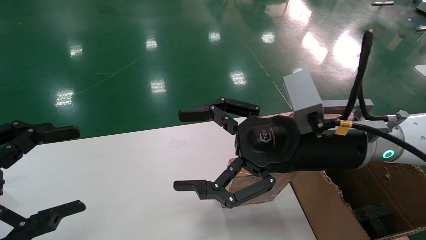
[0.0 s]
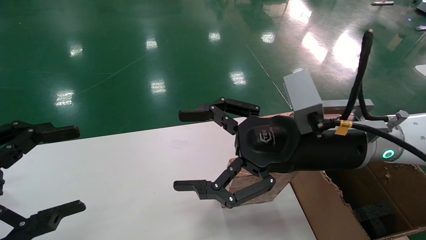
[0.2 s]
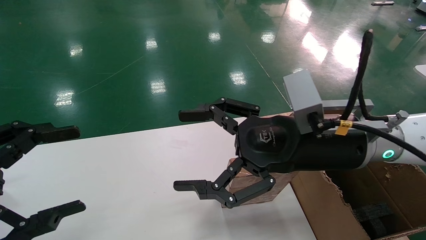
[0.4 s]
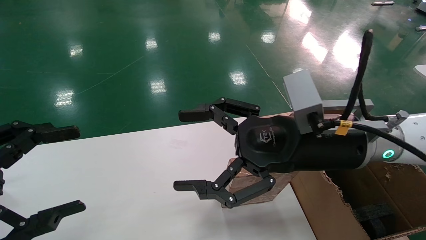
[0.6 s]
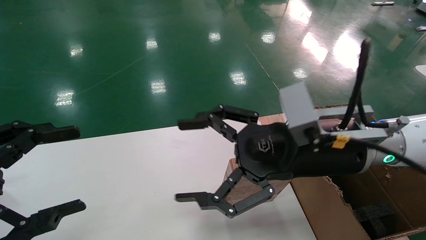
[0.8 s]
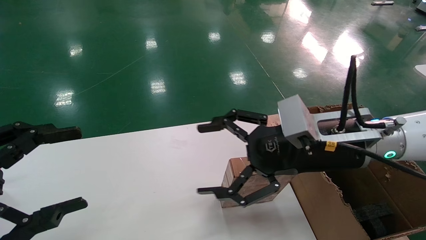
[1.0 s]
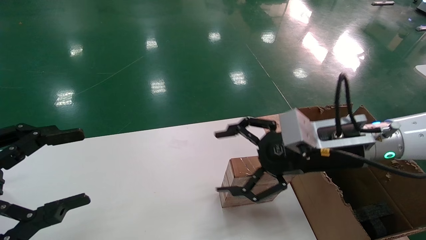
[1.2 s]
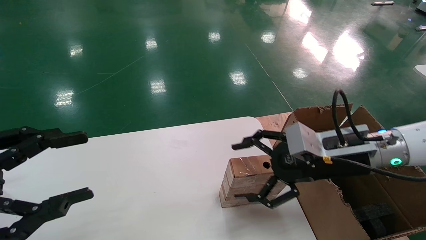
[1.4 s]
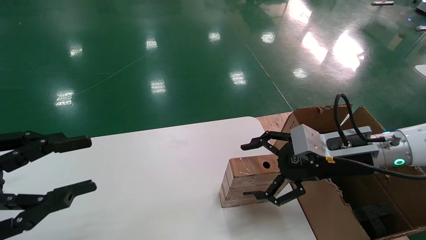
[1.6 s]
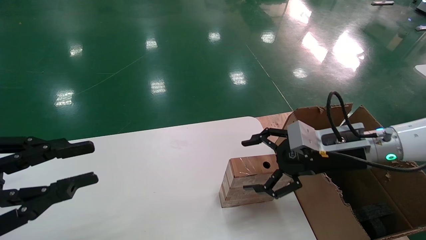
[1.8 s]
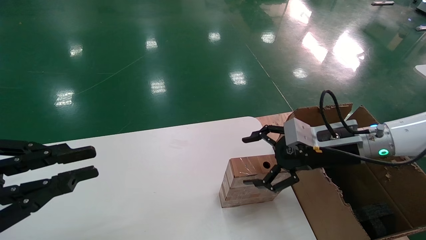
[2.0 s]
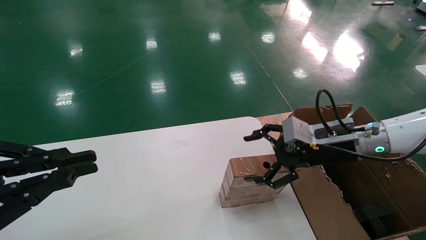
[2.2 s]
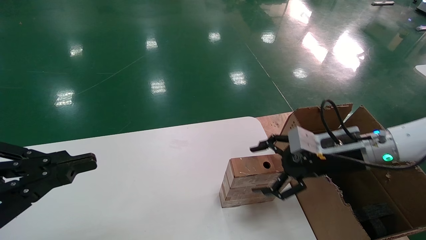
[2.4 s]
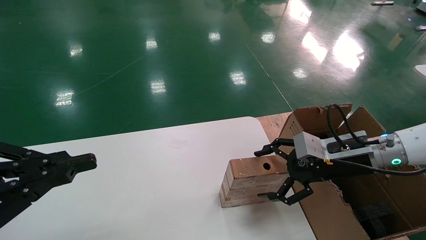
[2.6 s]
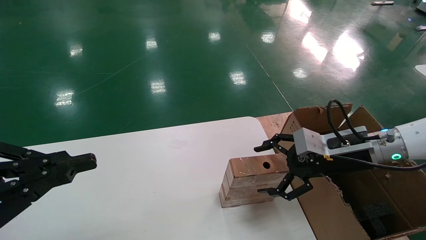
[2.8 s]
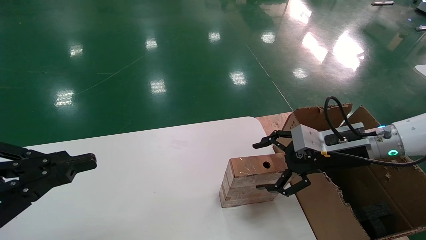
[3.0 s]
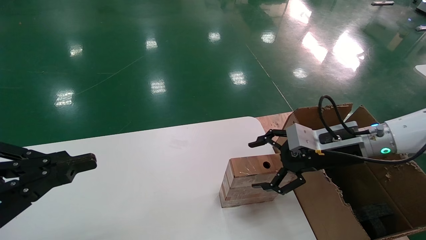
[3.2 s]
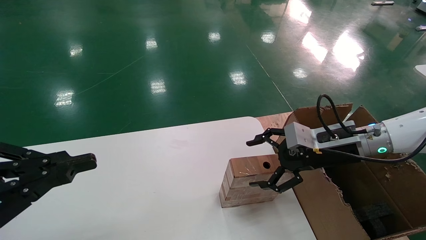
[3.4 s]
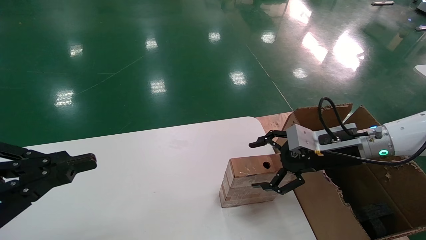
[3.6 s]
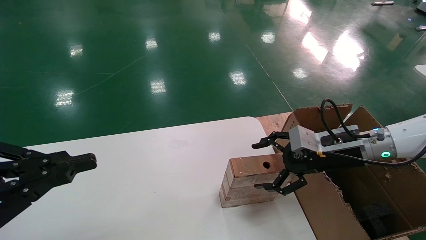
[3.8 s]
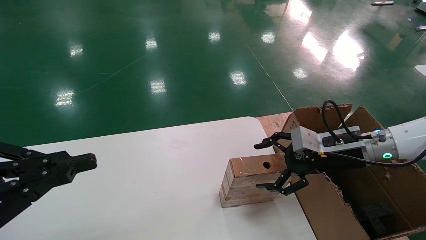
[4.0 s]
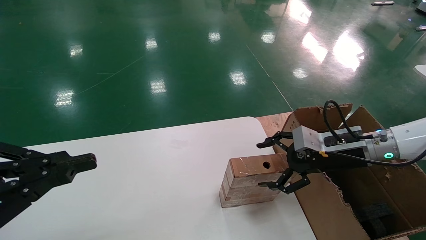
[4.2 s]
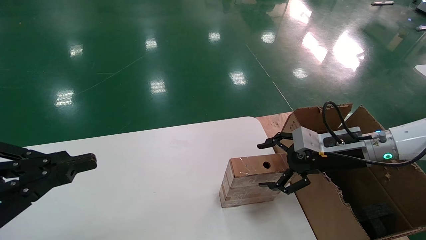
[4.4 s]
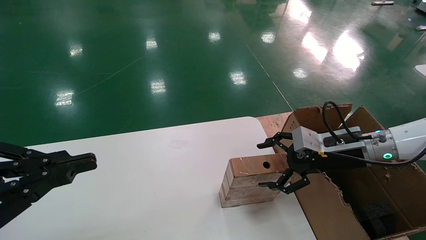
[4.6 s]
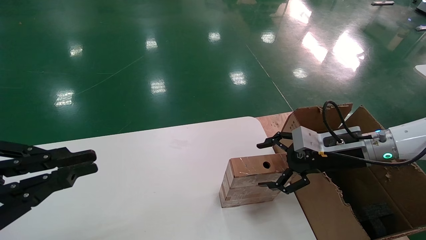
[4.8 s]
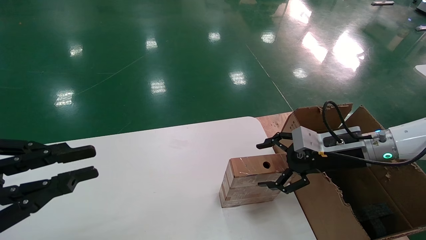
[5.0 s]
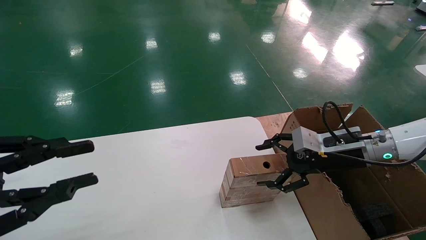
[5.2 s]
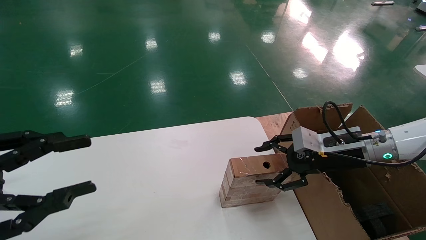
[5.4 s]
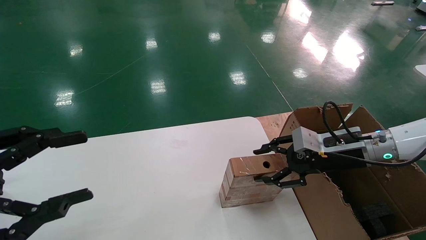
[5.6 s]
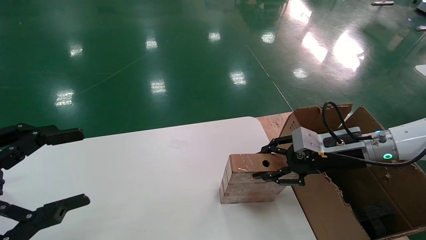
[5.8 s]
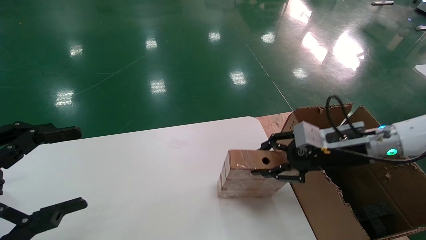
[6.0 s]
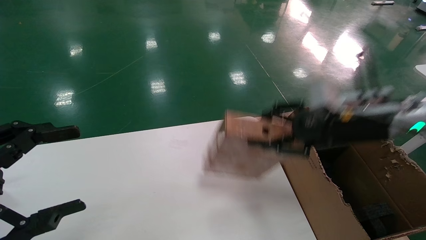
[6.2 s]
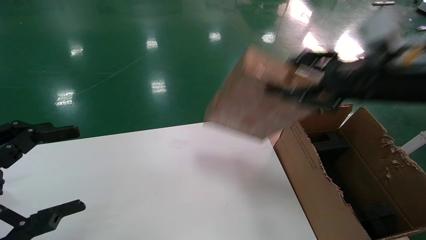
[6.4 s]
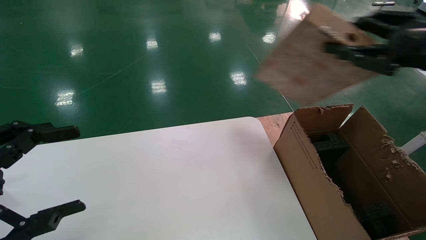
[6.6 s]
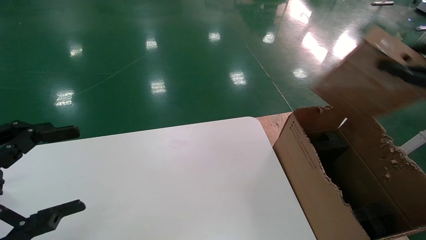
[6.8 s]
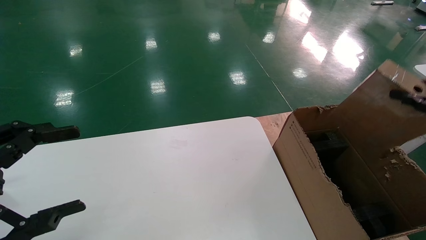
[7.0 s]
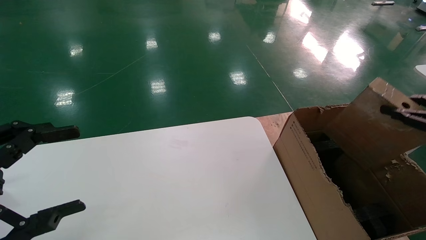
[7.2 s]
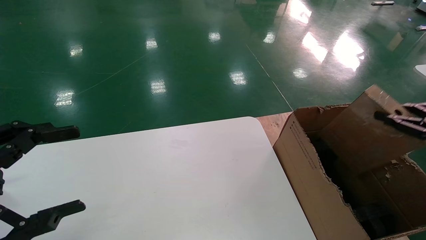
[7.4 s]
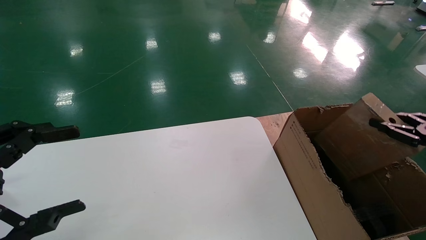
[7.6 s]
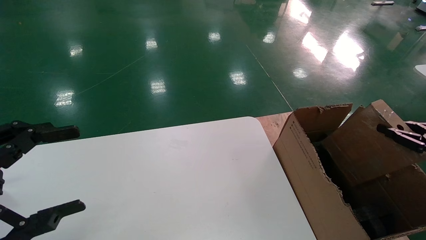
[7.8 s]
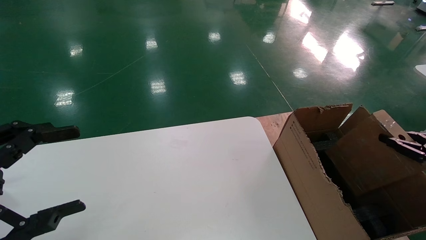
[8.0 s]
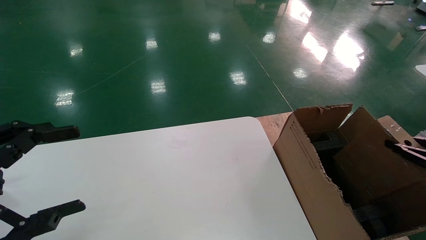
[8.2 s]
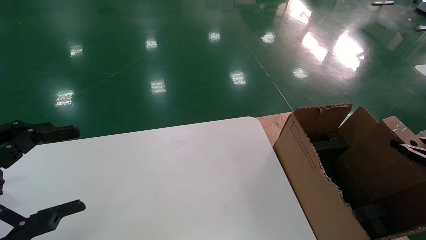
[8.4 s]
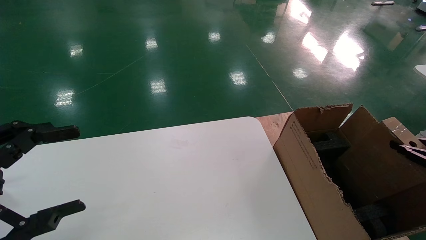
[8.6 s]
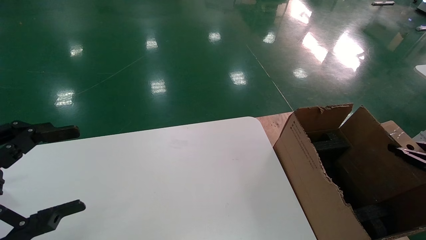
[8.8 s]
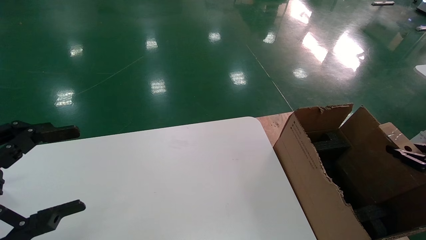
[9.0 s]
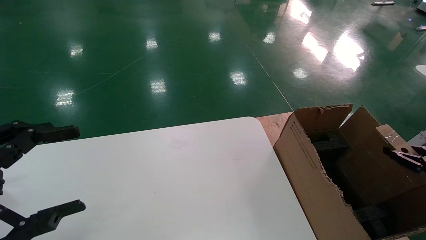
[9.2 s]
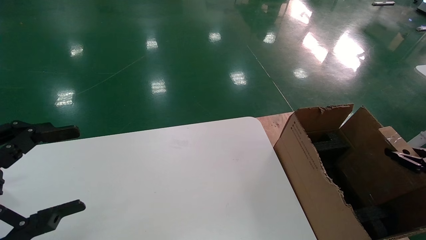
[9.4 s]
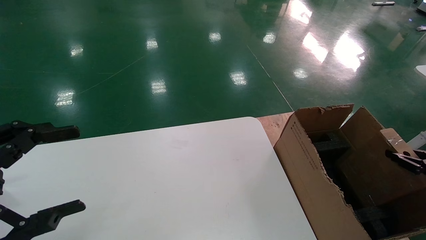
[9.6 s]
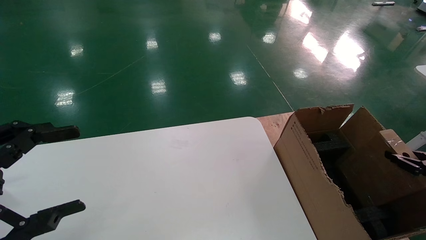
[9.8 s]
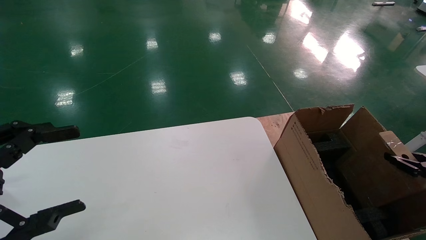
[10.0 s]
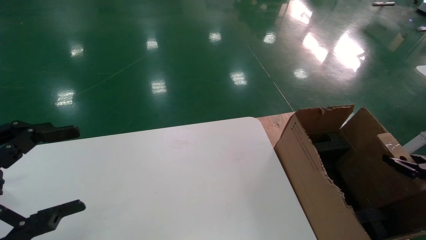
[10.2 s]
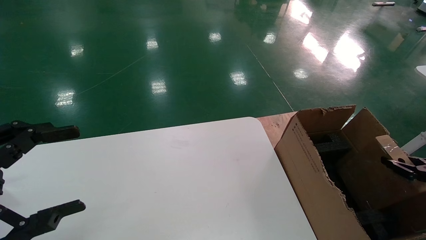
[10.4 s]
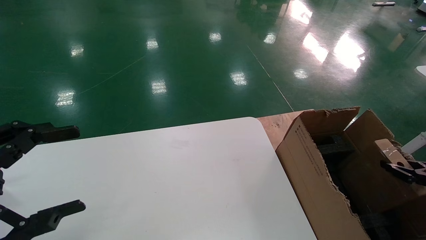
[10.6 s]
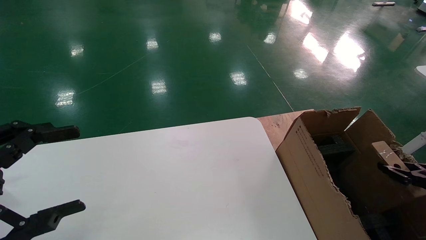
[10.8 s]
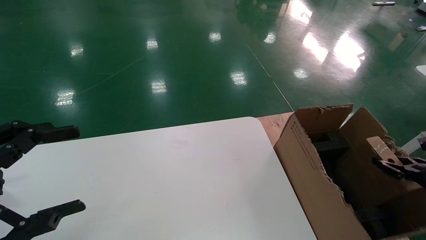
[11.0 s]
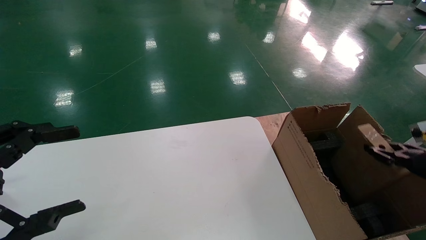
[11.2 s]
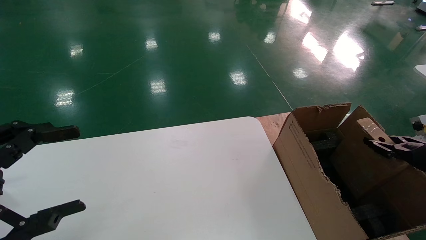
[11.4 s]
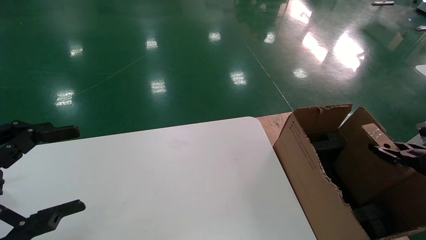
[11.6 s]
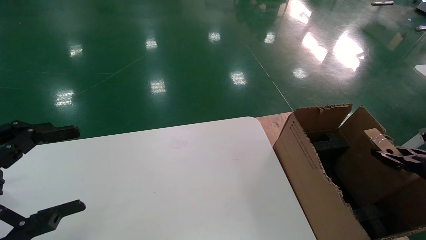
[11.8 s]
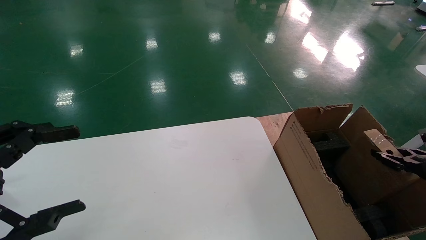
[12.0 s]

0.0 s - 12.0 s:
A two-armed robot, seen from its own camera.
Task of the whole recording: put the box on the table into the big box.
Step, 1.2 s - 6.0 s: Pick up the mouse and the power cord paper box.
0.0 s - 1.6 s: The left gripper closes, while the right gripper heads to the right and downward, covering some 10 cm.
1.6 s - 3.0 s: The left gripper closes its fingers.
3.0 s - 4.4 s: The grippers make only small movements.
4.4 s - 6.0 s: The right gripper closes; the left gripper opens.
6.0 s - 7.6 s: The right gripper heads to the right and backward, covering roughly 25 cm.
7.6 s - 9.0 s: The right gripper moves downward, some 5 cm.
9.0 s - 10.4 s: The grippers make only small movements.
10.4 s - 12.0 s: The grippers move only a little.

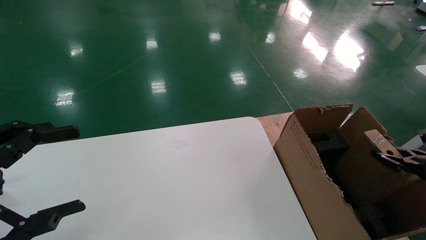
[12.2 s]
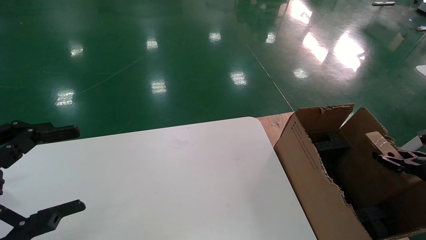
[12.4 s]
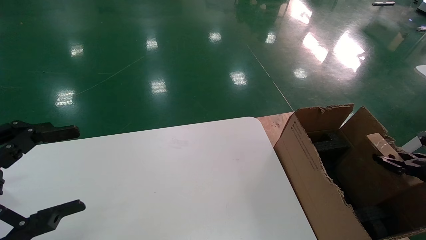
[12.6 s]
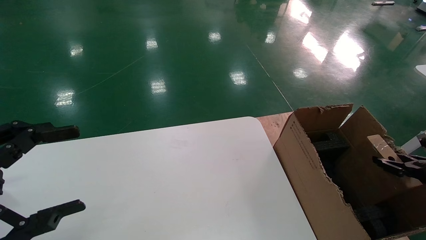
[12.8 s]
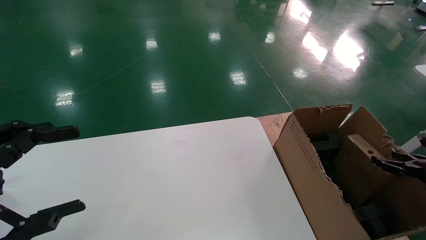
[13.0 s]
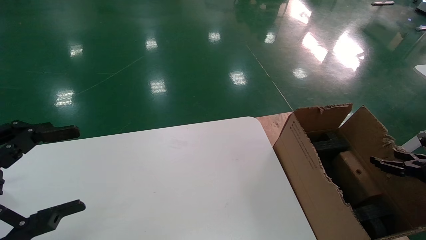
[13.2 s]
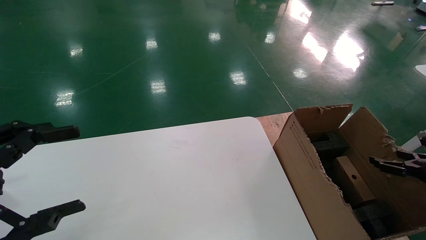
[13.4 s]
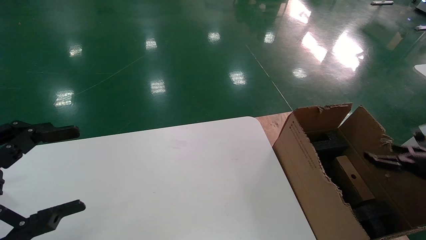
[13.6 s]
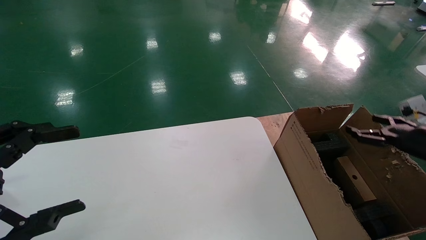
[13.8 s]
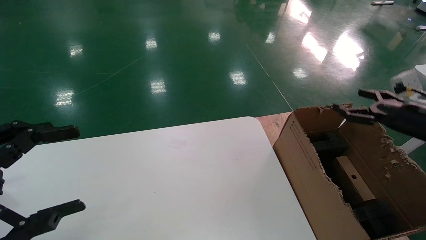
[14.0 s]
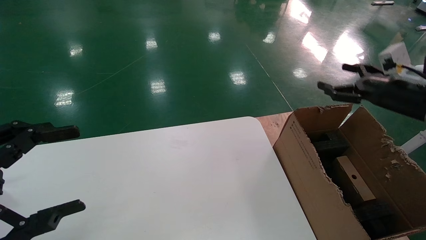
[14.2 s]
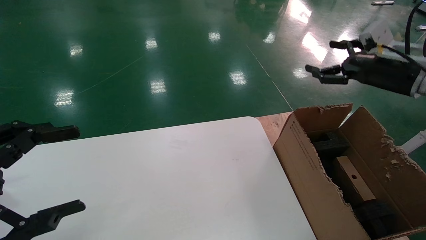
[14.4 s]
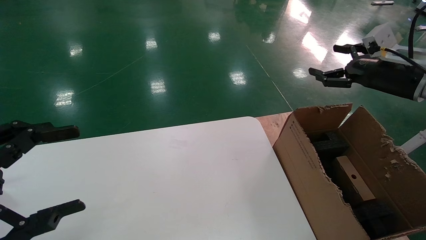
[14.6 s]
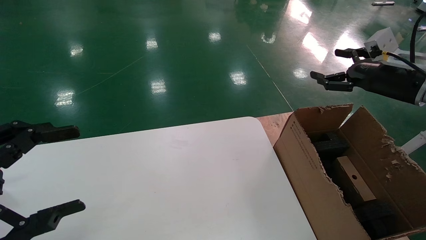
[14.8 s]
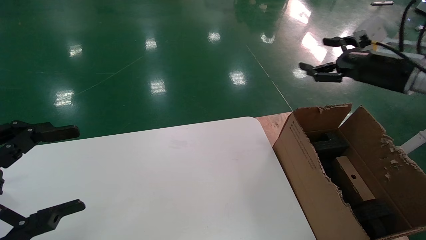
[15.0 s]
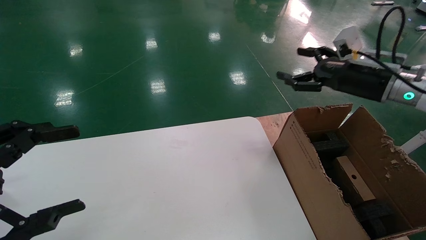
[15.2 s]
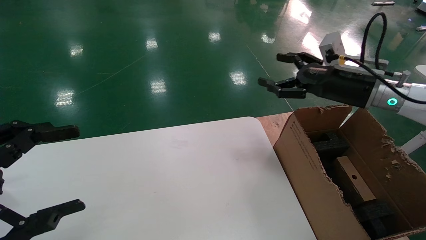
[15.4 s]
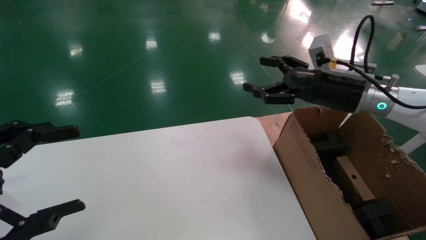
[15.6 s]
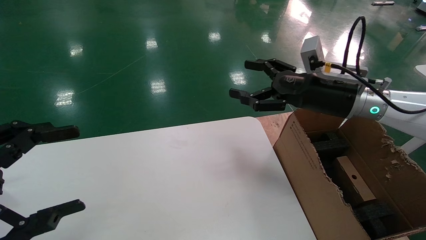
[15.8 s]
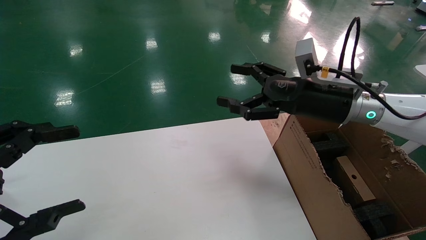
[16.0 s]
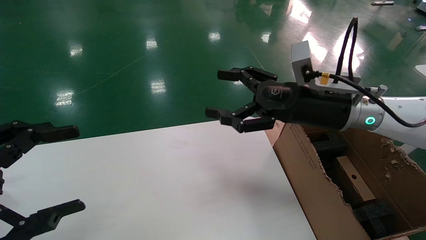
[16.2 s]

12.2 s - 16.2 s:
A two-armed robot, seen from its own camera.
Task of the whole recording: put the box on the table into the big box.
12.2 s - 13.6 s: The right gripper opens up.
13.6 s - 14.8 s: The right gripper moves upward, to the left and forward, roughly 20 cm.
14.8 s - 16.2 s: The right gripper shifts about 20 cm to the left.
